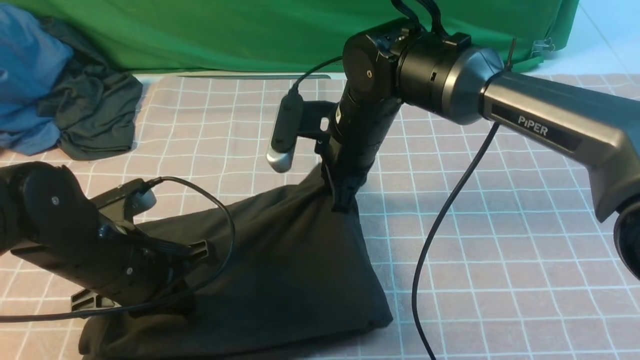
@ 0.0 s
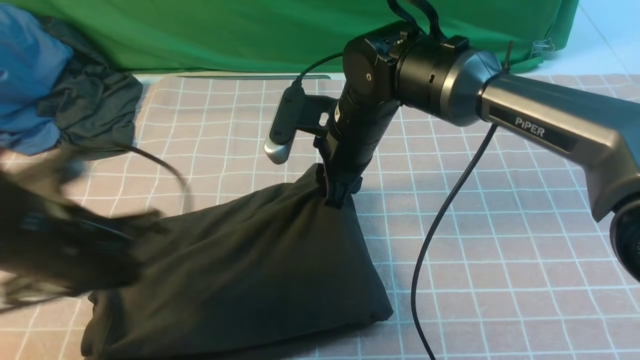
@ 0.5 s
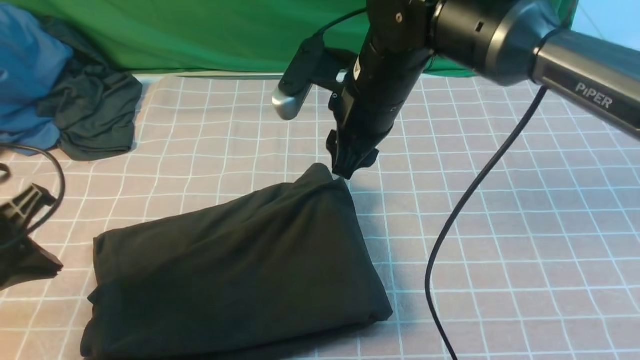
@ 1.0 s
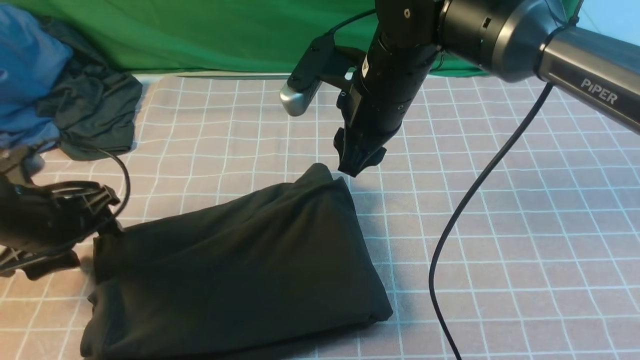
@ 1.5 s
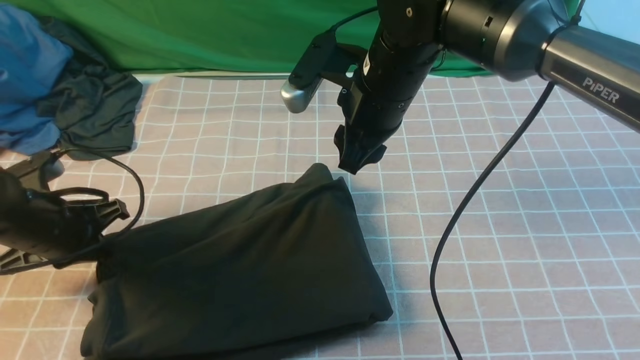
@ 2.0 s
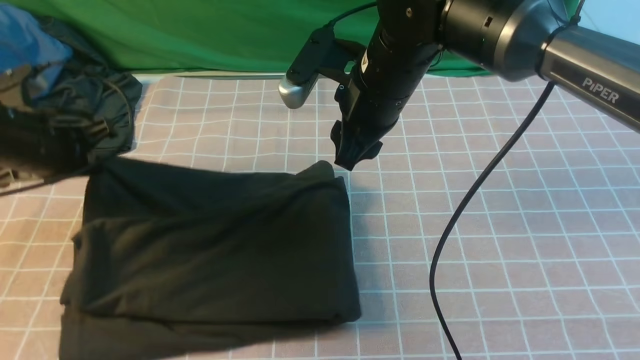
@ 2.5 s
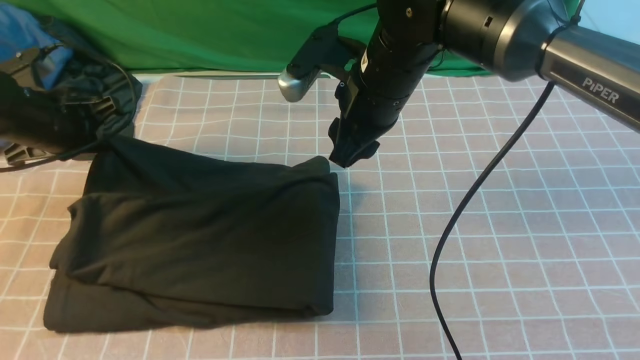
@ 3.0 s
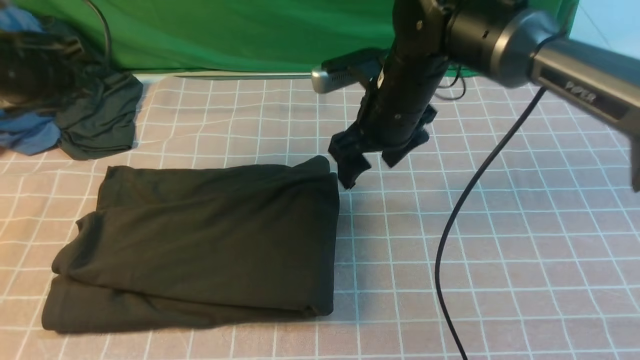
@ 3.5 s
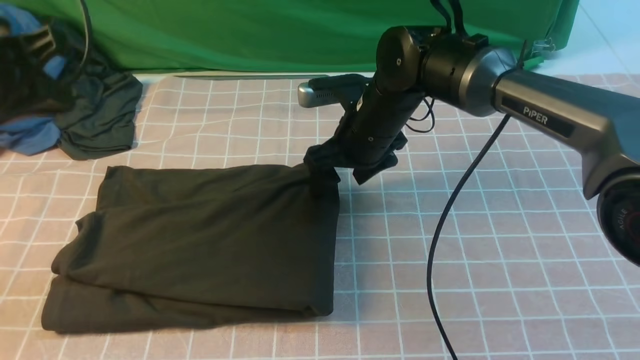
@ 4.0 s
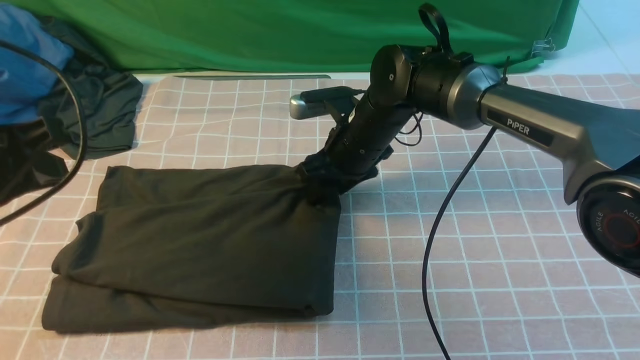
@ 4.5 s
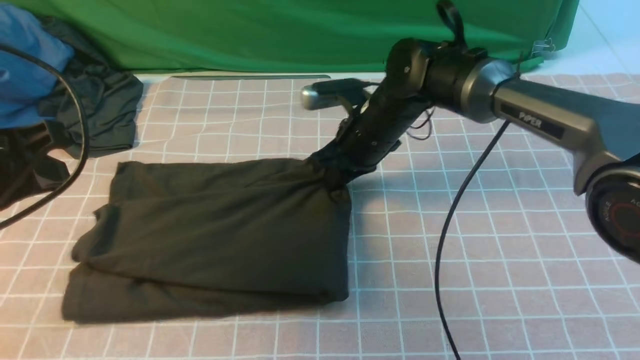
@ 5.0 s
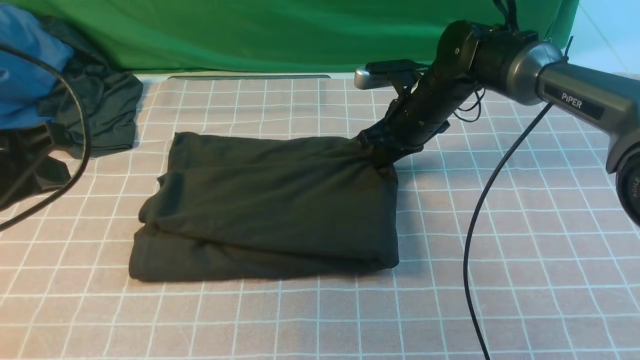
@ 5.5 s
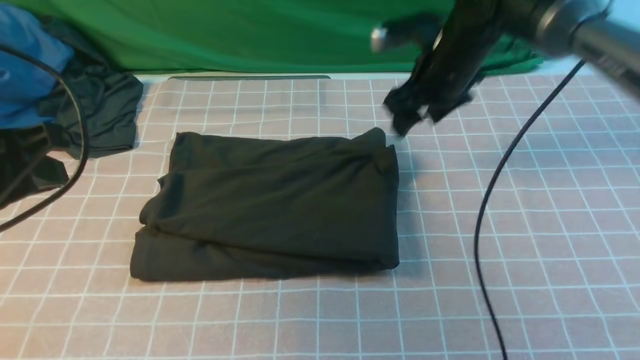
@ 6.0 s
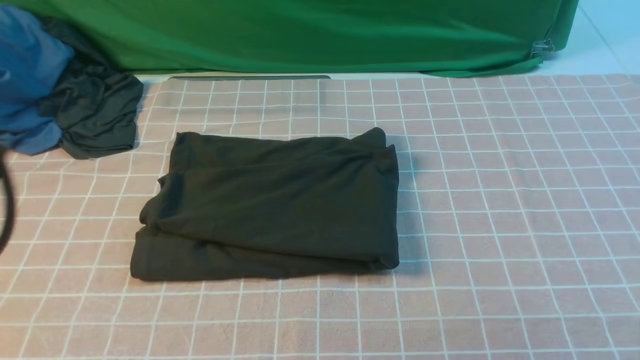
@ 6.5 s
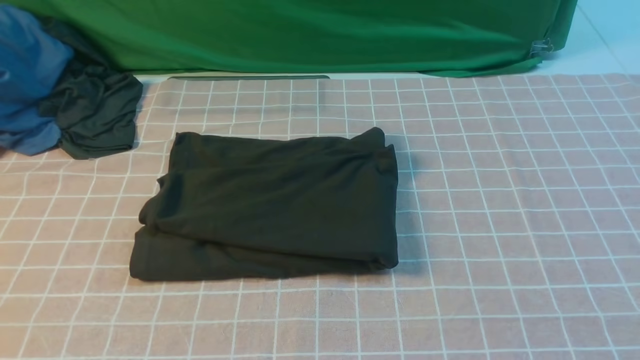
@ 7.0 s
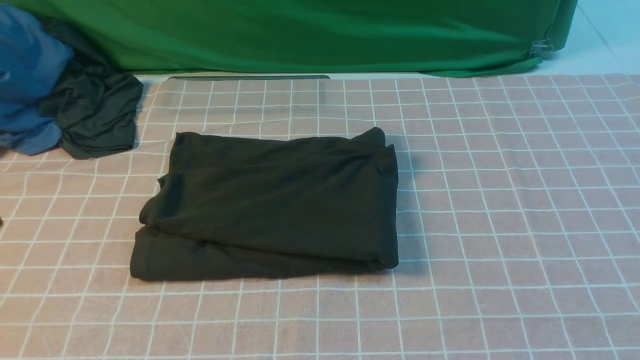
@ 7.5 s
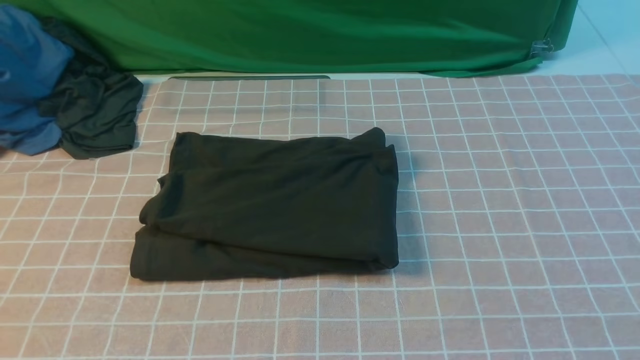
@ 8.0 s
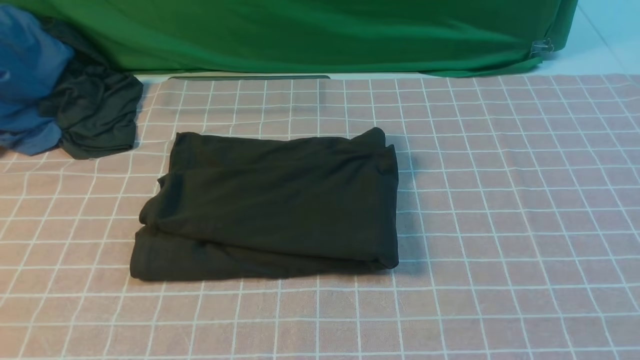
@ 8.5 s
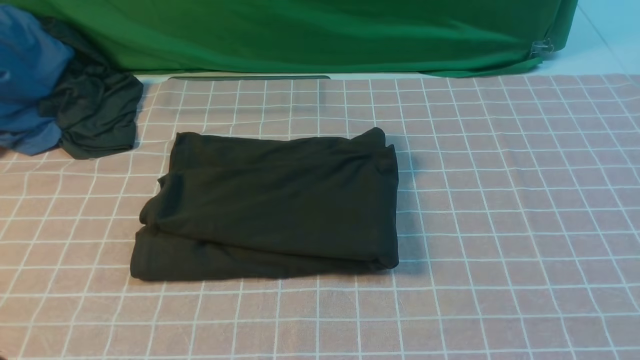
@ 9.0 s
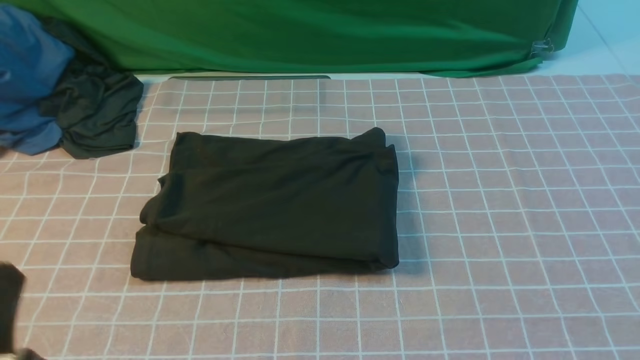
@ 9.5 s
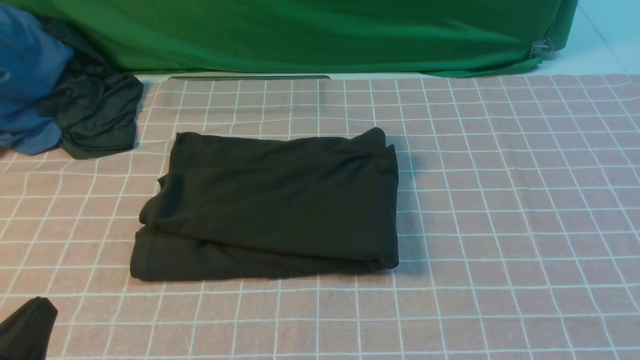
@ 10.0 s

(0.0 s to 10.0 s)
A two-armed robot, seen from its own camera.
0.0 s - 2.0 s: The left gripper travels to the left and forward by roughly 15 cm, and opens, then closes once more. The right gripper is displaced upward by some 5 cm, and opens its fingers.
2.0 s - 4.0 s: The left gripper goes about 20 cm upward. The right gripper travels downward by some 10 cm, and opens up.
4.0 s - 6.0 s: The right gripper travels to the right and upward by about 15 cm, and closes up. The left gripper is displaced backward by about 5 cm.
6.0 s - 8.0 s: The left gripper moves backward, some 20 cm, while the right gripper goes approximately 40 cm backward, and closes.
8.0 s - 10.0 s: The left gripper heads downward, covering roughly 15 cm.

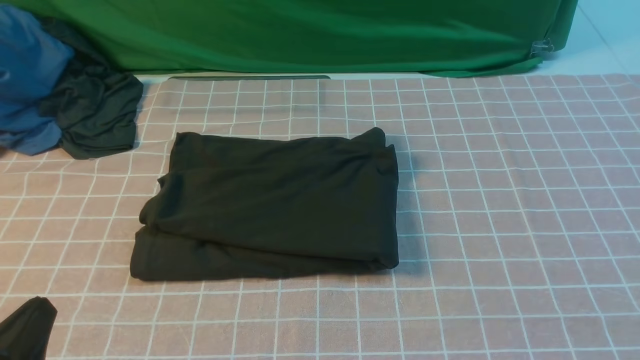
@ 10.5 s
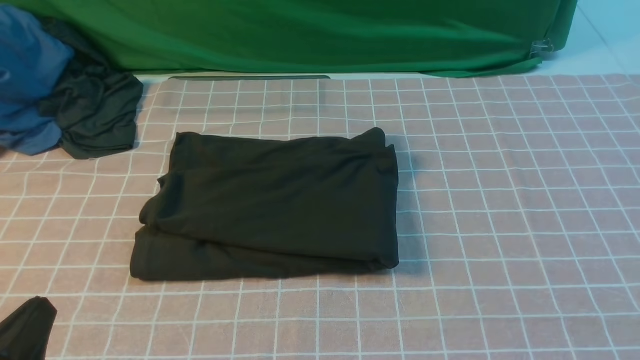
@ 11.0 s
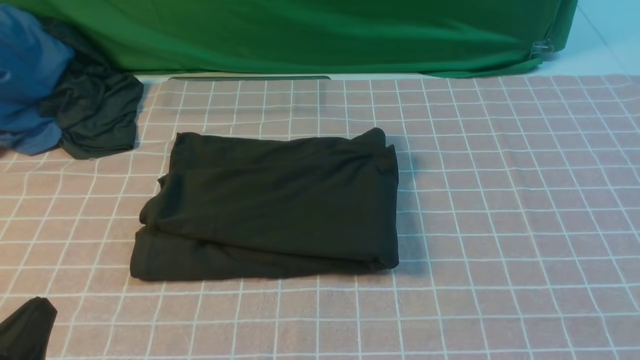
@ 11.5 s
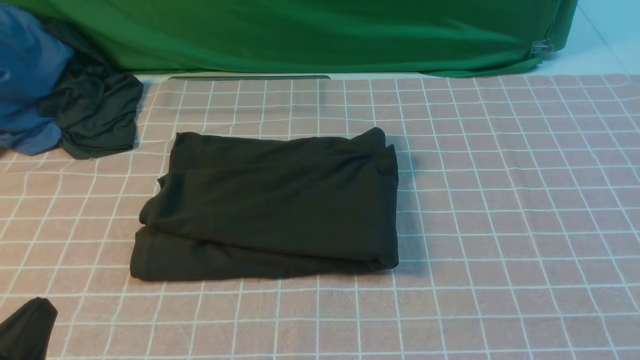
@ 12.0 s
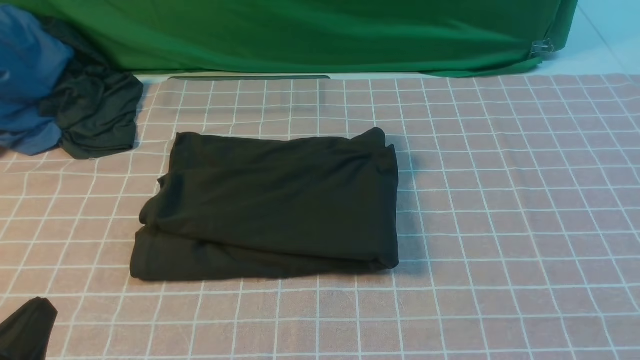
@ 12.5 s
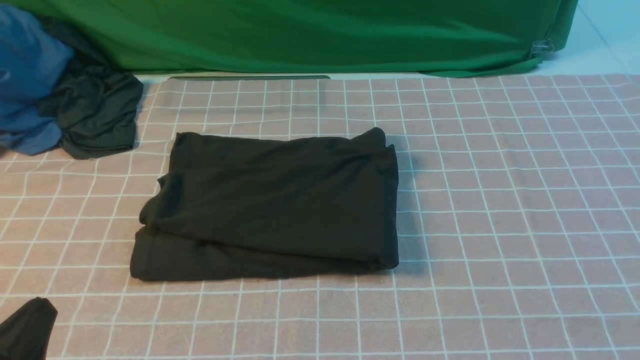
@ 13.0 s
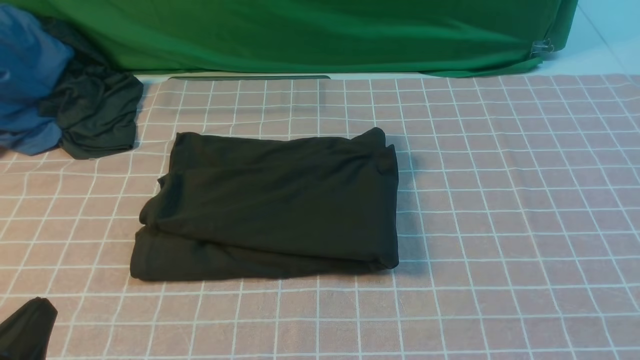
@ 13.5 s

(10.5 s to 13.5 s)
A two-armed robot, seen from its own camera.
12.0 s - 13.5 s: The two grippers keep their place.
